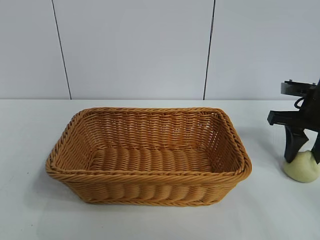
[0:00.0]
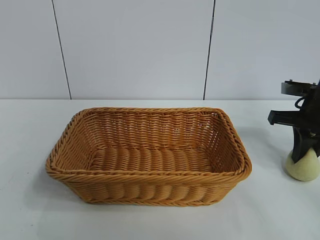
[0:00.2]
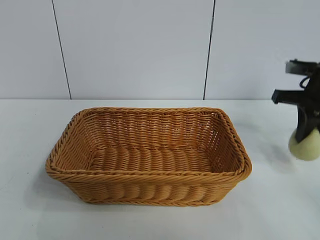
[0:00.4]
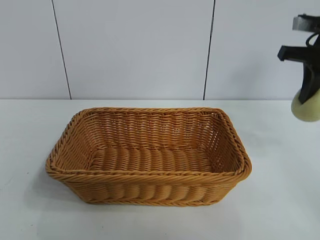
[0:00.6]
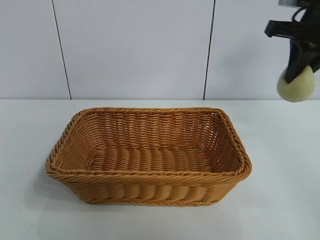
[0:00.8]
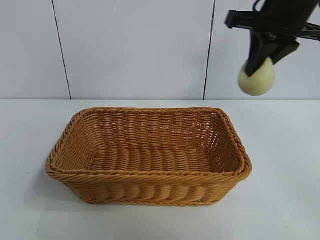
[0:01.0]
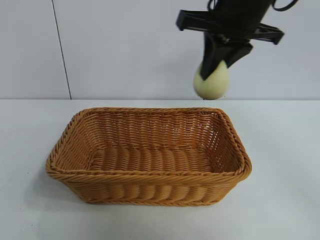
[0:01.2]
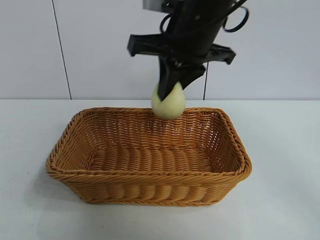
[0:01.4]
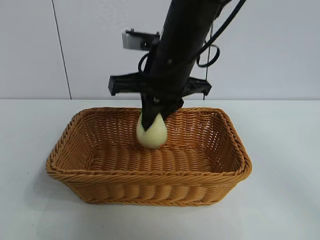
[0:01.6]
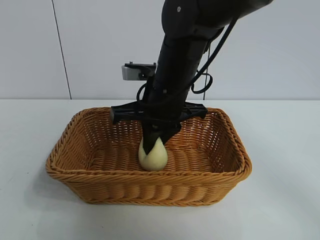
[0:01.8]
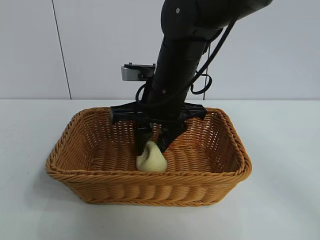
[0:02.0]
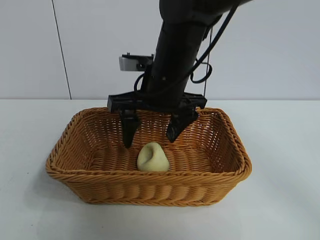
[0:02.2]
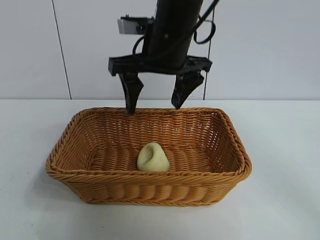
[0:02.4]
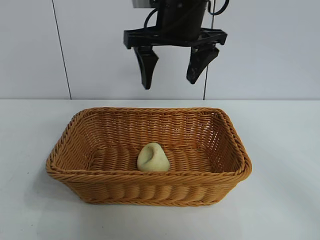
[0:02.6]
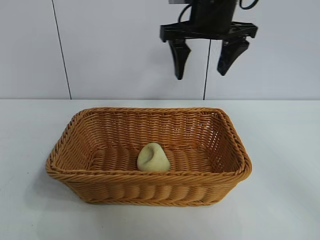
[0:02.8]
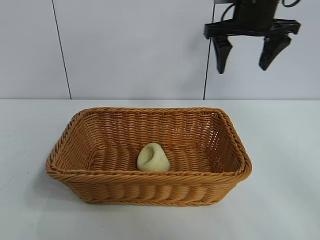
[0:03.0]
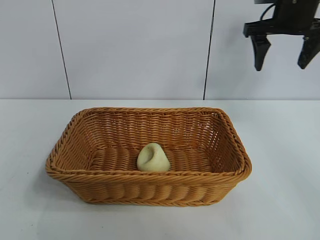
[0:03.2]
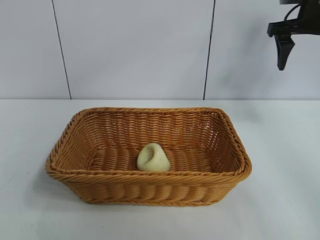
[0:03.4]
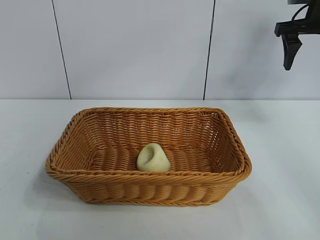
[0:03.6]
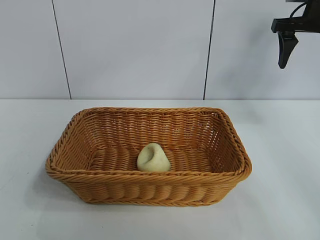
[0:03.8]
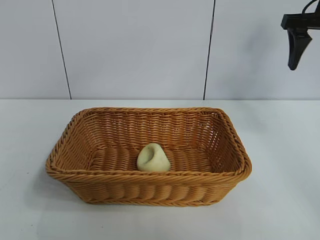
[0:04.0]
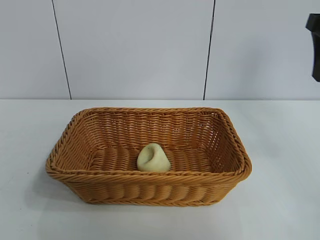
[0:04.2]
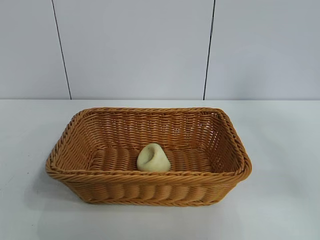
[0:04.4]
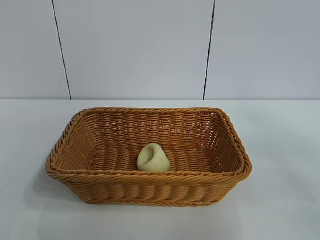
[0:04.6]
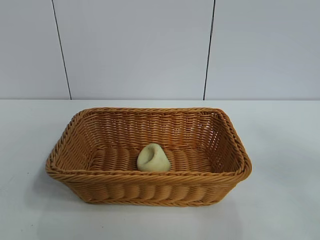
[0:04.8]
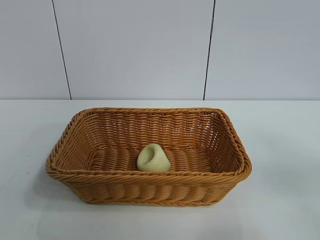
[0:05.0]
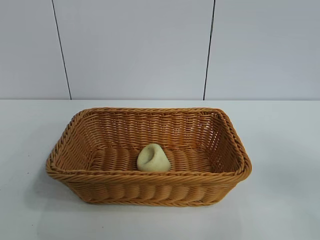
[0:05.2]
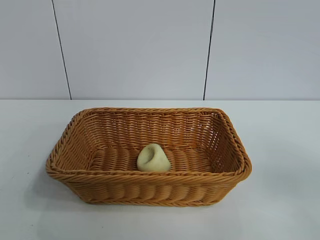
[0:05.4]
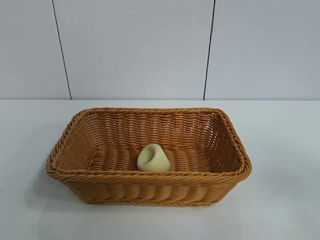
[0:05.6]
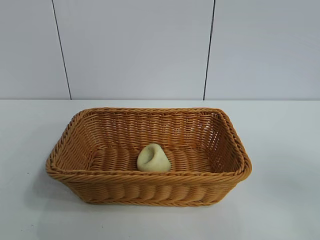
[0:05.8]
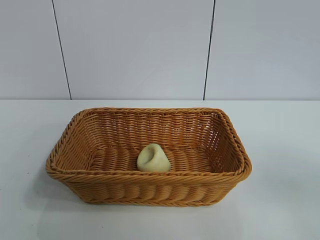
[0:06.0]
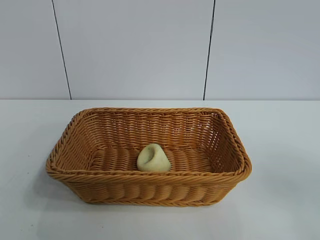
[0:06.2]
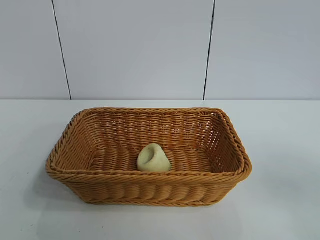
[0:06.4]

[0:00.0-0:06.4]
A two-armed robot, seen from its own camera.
Task of the whole recording: pick up the egg yolk pastry and put it into the basket.
Step, 0:00.2 to 0:02.0: Place the egg yolk pastry in the basket with right gripper.

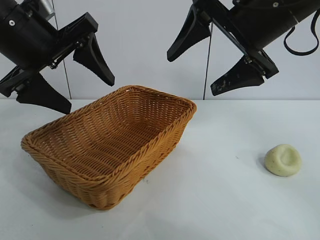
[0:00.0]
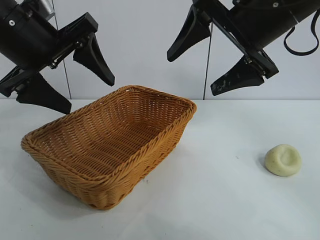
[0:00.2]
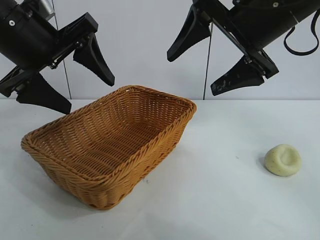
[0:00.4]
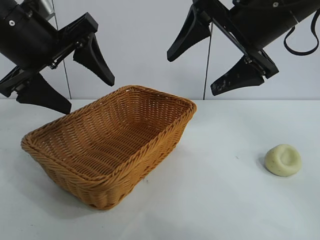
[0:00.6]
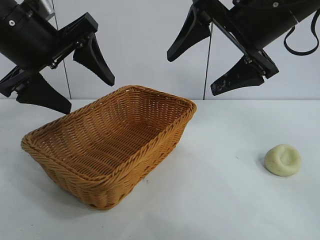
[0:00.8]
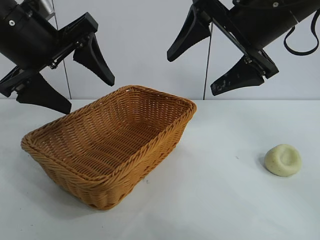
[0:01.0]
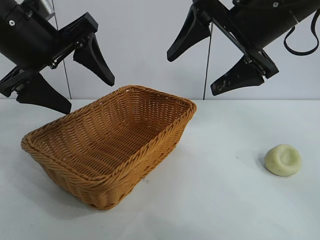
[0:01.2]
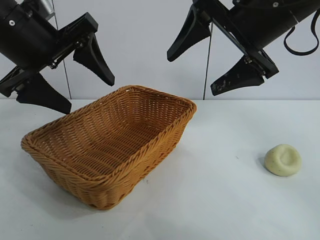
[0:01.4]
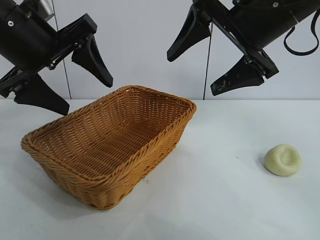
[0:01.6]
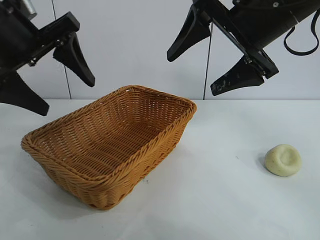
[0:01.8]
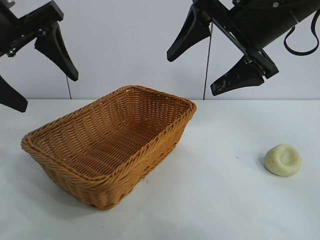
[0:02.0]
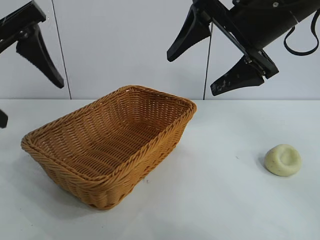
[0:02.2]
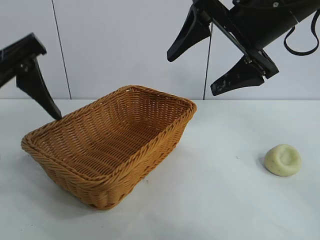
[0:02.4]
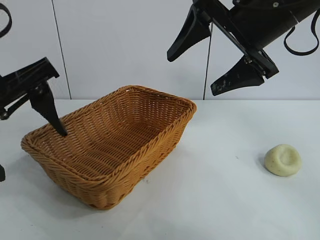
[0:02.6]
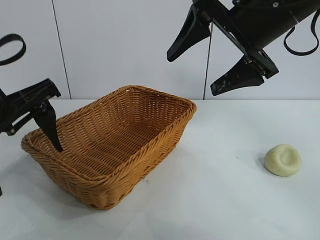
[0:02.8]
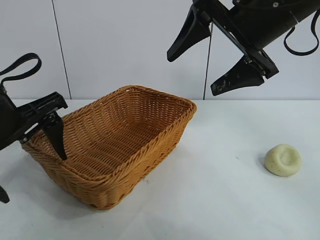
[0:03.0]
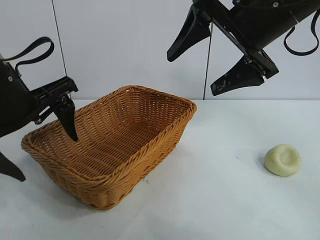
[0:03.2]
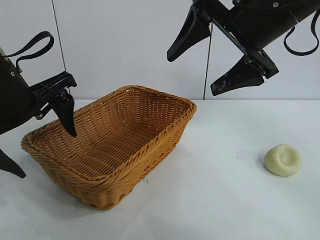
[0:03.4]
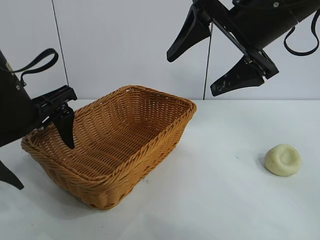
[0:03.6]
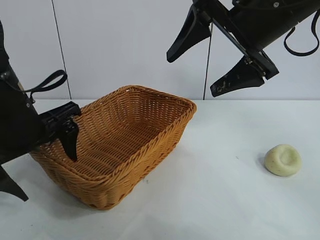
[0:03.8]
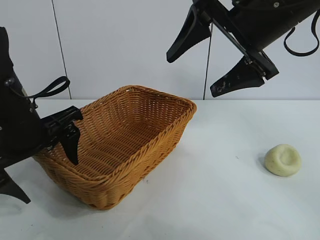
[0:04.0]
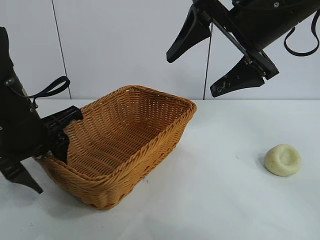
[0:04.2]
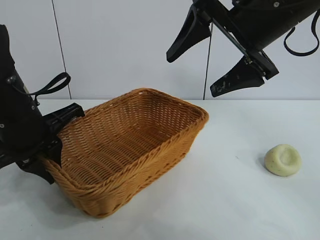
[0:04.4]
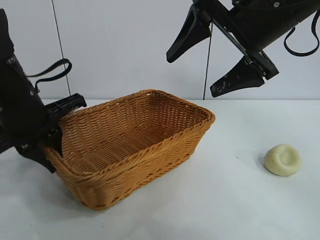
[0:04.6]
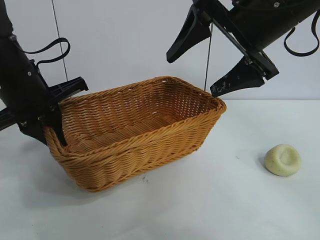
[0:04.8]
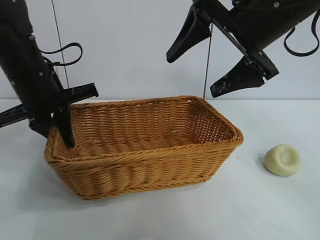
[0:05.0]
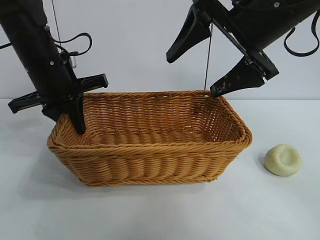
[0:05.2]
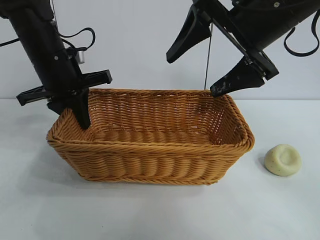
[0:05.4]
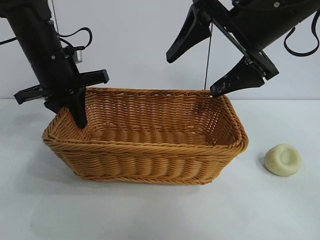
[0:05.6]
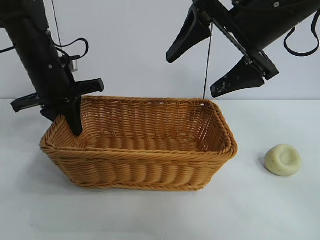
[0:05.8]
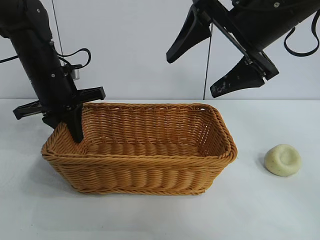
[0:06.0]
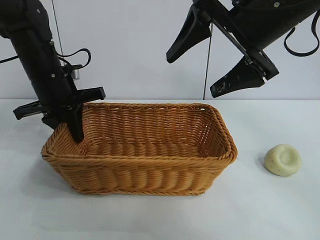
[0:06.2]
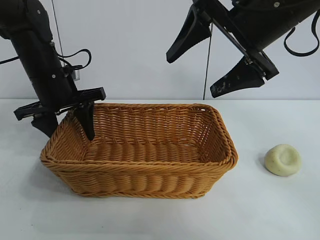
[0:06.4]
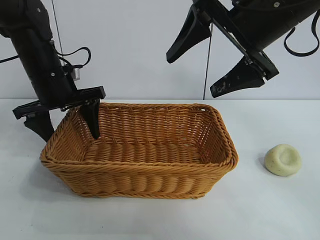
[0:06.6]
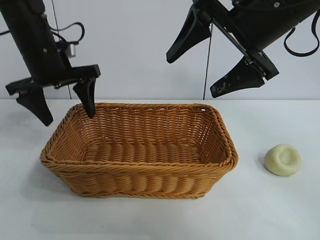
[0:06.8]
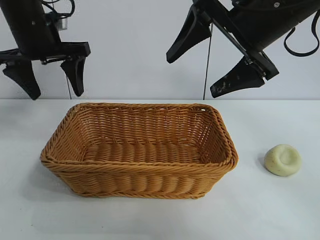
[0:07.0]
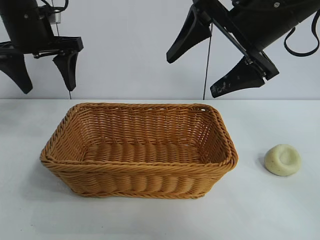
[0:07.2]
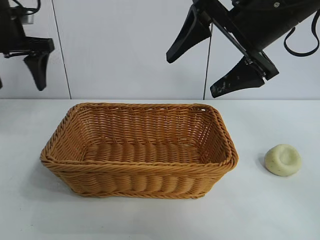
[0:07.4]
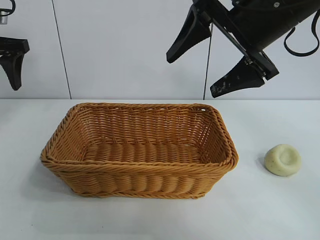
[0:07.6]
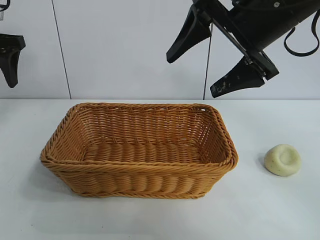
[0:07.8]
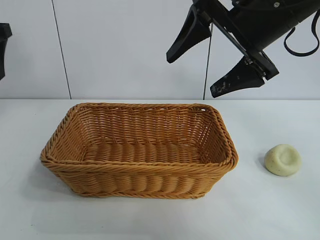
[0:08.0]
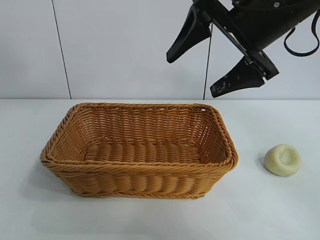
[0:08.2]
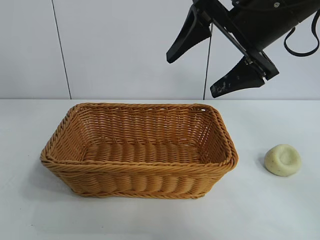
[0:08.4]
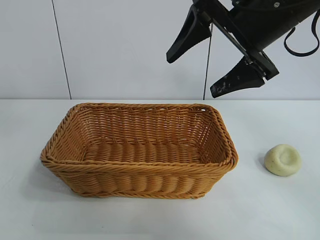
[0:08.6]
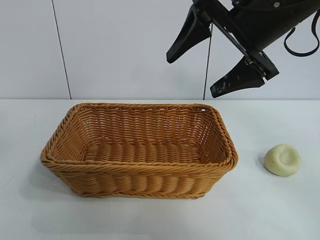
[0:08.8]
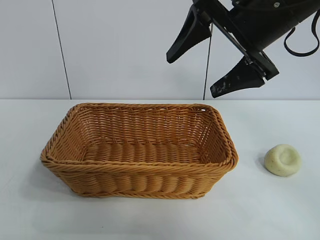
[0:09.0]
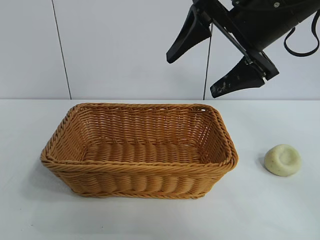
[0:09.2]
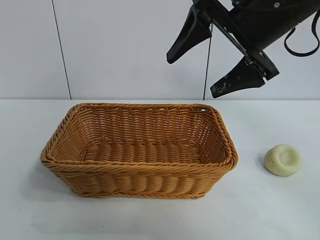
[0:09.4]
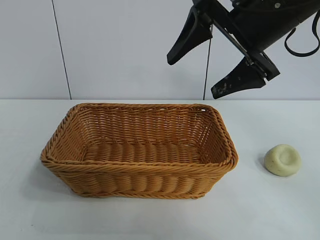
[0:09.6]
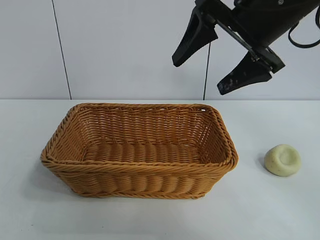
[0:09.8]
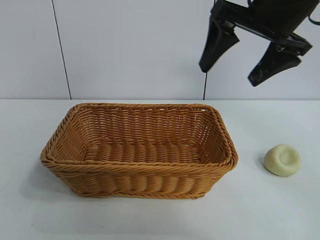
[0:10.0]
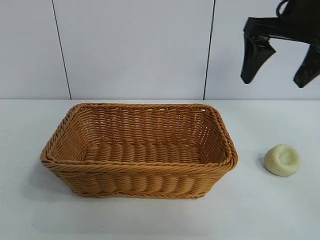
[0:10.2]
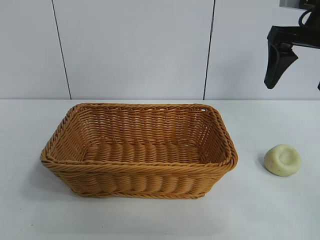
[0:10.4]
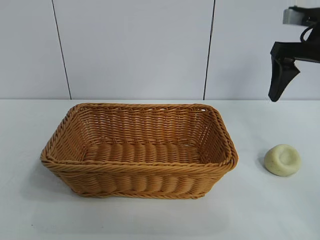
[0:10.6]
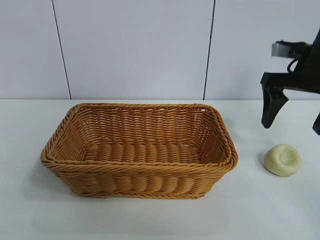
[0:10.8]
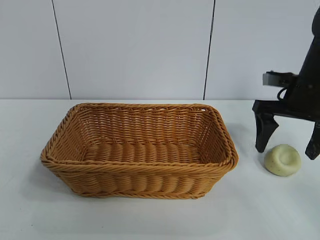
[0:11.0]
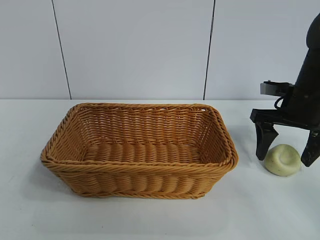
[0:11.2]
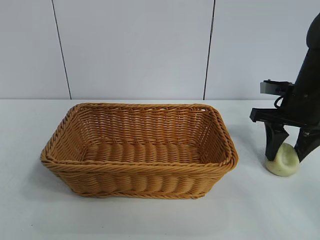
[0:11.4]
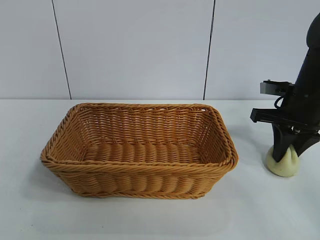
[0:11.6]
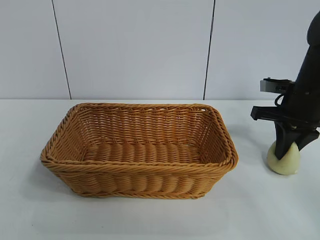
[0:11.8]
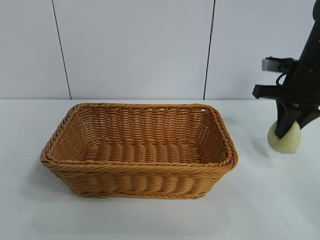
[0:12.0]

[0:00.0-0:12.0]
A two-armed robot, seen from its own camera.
Task of the whole recording: pick up the egg yolk pastry and put it into the basket.
Step, 0:01.6 to 0:04.2: Grasp the basket with left gripper.
Step, 0:04.6 to 0:06.2: Place the basket in the center of view with left gripper.
Step, 0:06.6 to 0:11.4: Grasp egg yolk pastry with right gripper.

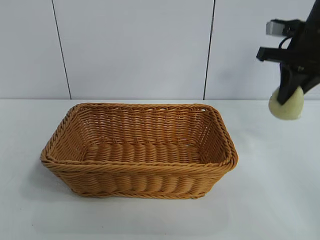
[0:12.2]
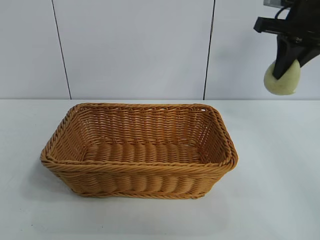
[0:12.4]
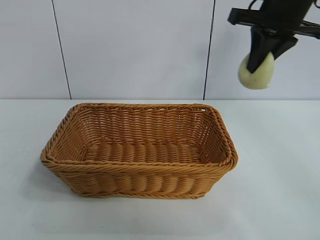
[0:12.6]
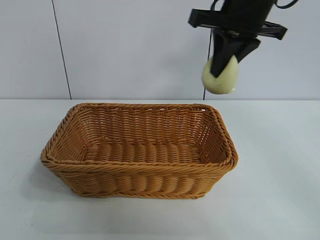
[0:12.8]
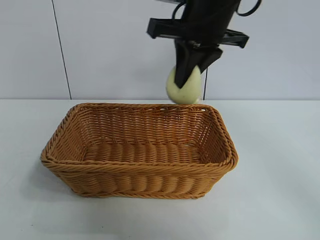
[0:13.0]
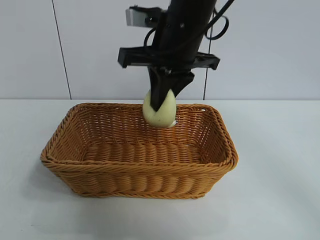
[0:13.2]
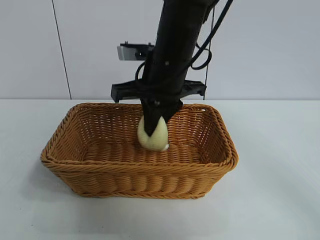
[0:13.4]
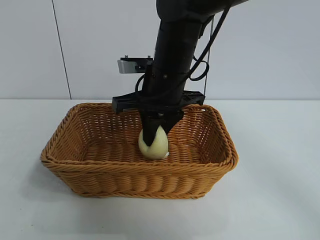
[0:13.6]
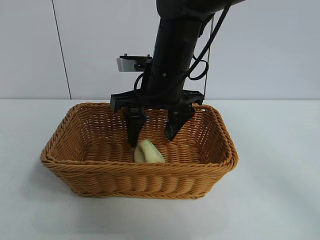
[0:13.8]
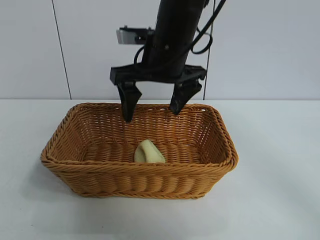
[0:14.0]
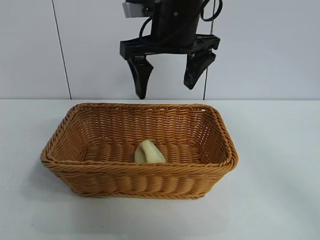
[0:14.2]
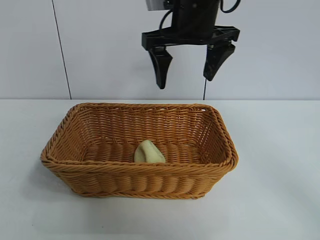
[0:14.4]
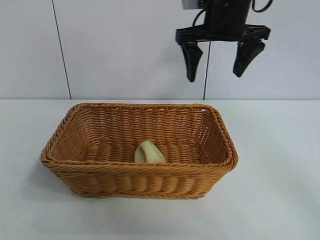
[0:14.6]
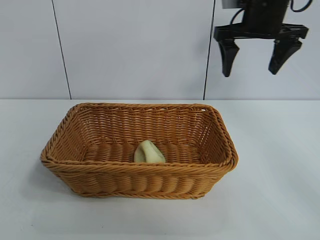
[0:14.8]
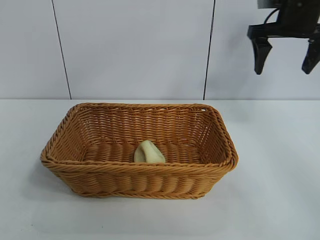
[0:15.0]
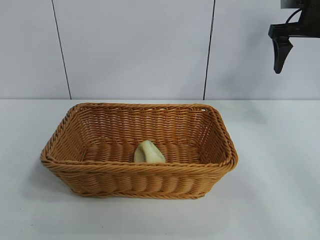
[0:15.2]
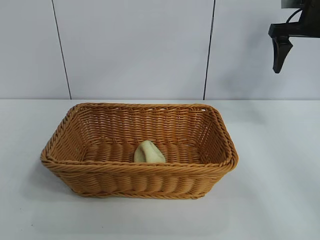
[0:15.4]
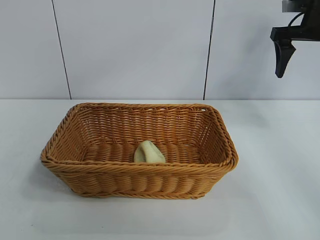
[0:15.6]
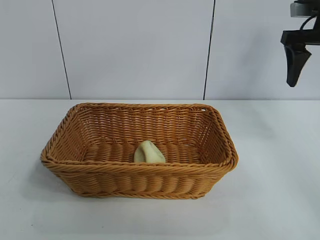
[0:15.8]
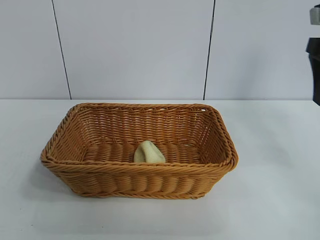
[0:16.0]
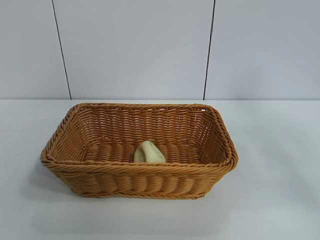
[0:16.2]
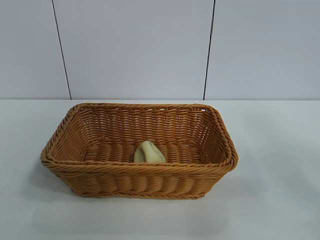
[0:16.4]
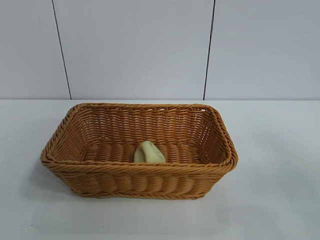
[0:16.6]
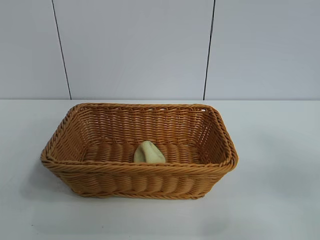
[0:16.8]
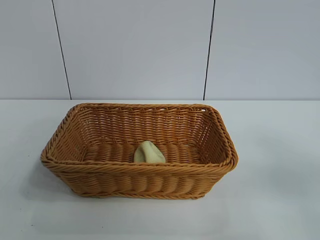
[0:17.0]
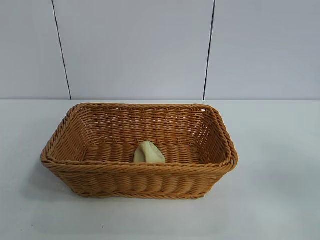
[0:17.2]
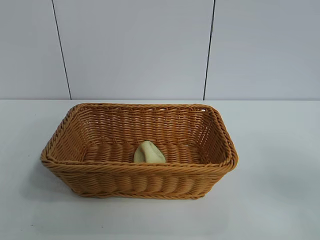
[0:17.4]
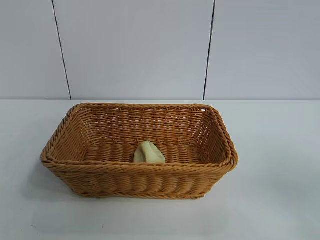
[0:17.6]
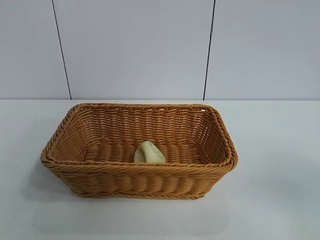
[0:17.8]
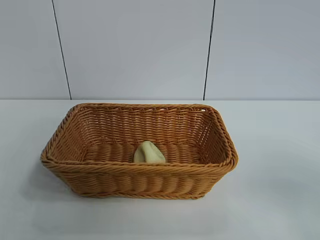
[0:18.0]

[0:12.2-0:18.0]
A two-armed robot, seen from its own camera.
Task of the whole recording: pick up the egg yolk pastry and put it into the basket.
Step, 0:12.2 to 0:13.6: Place the egg yolk pastry in the basket with right gripper.
